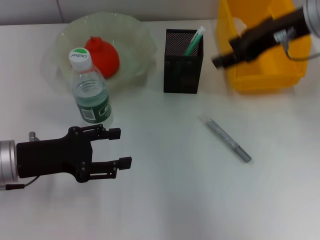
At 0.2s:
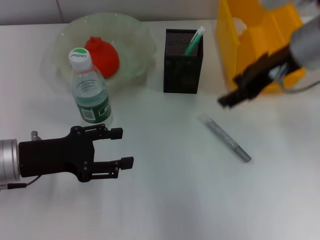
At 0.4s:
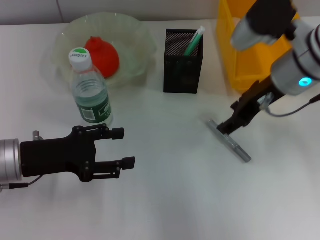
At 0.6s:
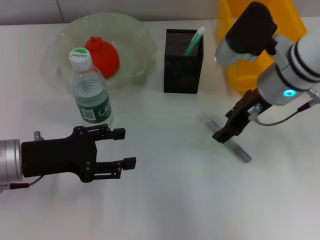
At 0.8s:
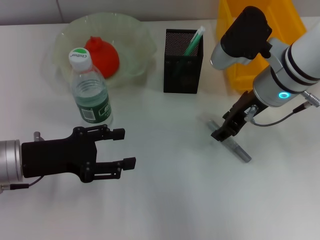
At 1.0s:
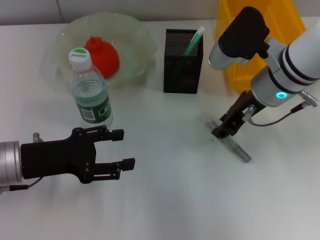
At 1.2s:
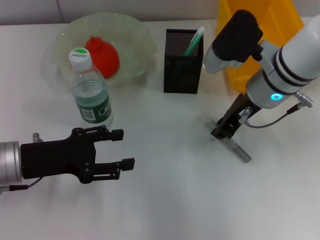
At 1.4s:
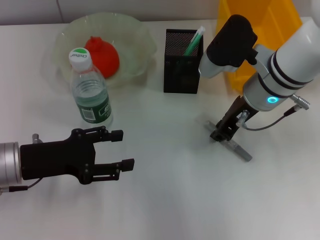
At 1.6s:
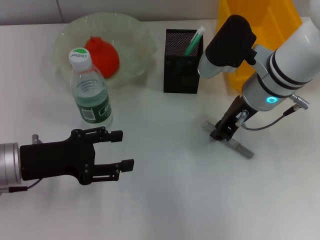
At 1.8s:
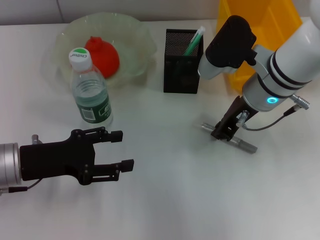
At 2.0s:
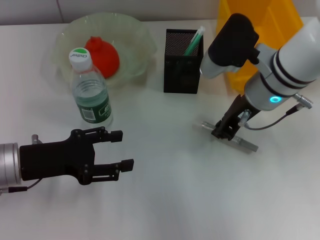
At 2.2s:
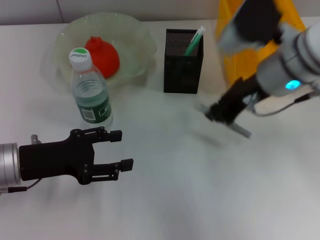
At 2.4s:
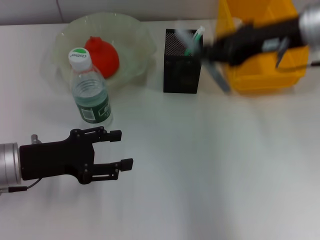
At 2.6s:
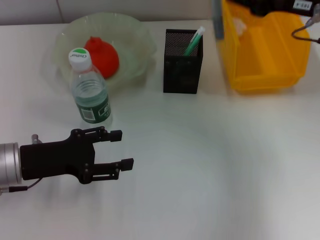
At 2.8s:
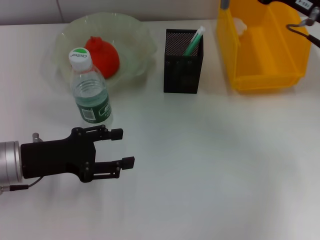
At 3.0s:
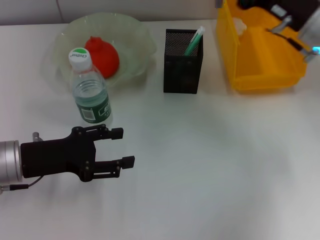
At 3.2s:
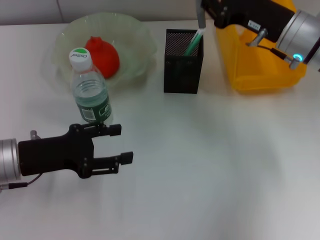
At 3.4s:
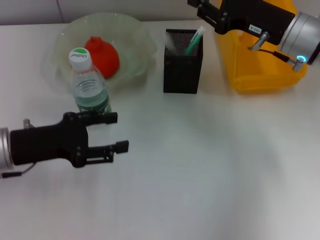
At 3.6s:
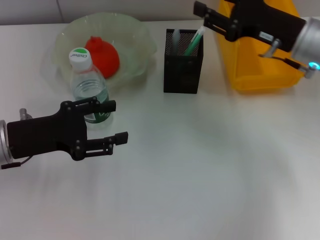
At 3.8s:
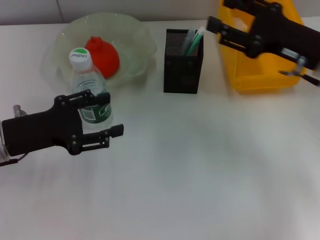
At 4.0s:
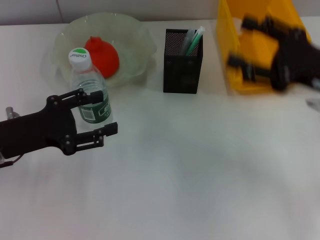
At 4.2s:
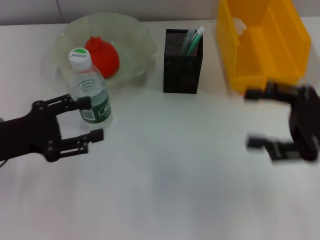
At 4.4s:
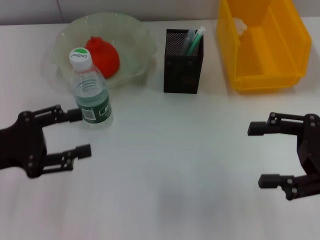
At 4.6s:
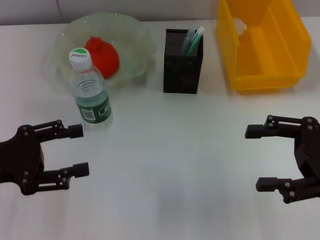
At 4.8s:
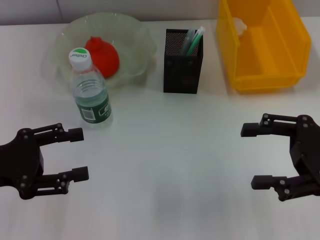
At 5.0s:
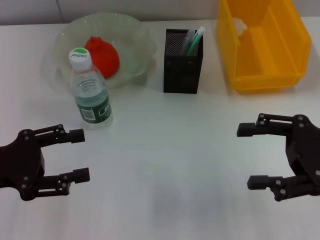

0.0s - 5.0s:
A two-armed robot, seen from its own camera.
Step, 0.0s - 1.6s: Grab the gray glue with the right hand.
Step, 1.8s - 3.6s: Place the gray glue into the pen holder with the right hand.
0.0s - 1.6s: The right gripper moves downward and to the left, about 10 cm, and closes.
1.6s - 3.4s: The right gripper moves to the right, some 5 cm.
3.4s - 5.0s: The left gripper shifts by roughly 5 cm, while the right gripper travels backward and to the right by about 15 cm, and opens its fingers.

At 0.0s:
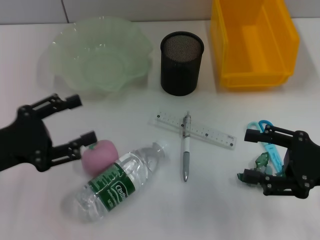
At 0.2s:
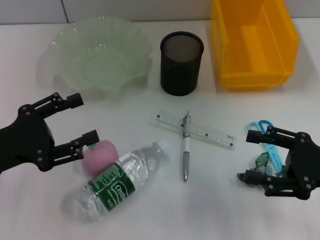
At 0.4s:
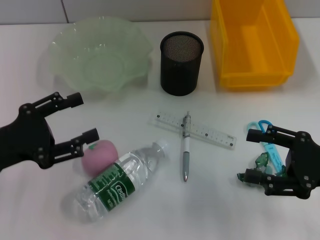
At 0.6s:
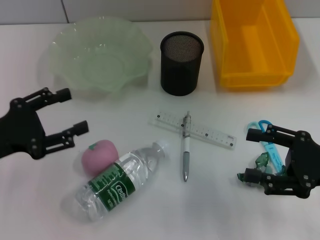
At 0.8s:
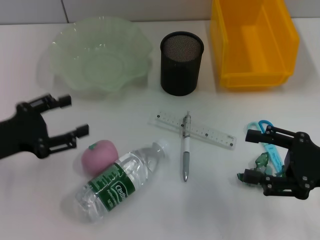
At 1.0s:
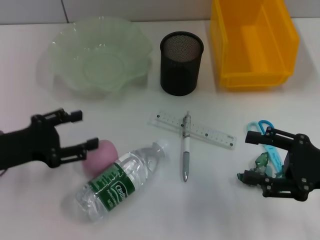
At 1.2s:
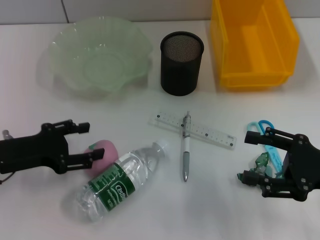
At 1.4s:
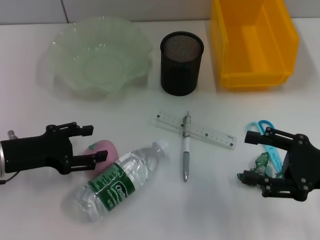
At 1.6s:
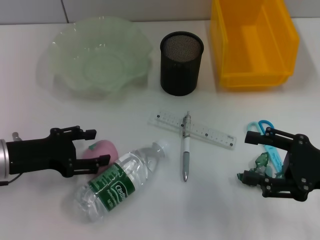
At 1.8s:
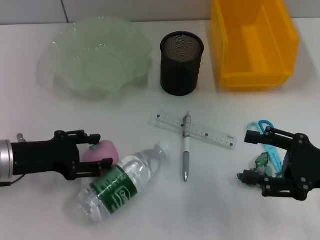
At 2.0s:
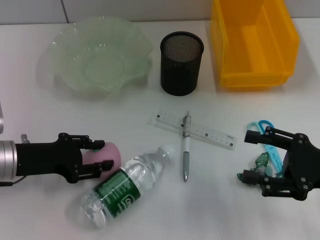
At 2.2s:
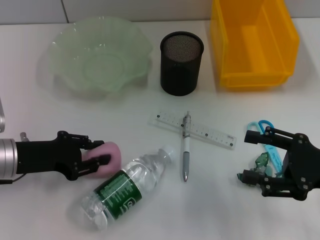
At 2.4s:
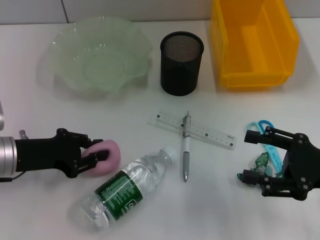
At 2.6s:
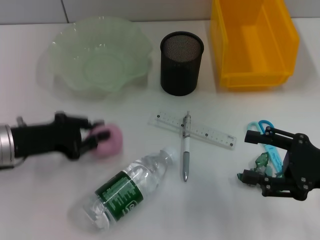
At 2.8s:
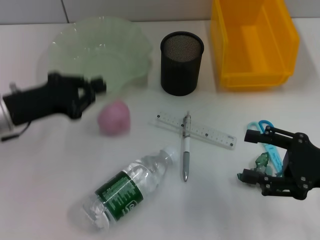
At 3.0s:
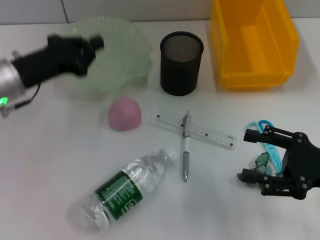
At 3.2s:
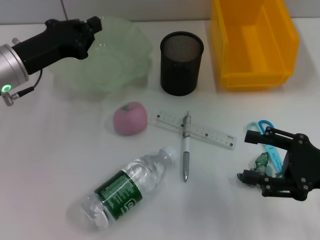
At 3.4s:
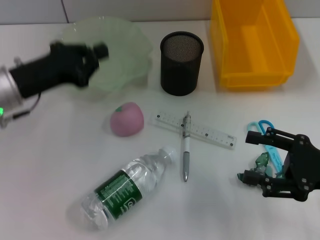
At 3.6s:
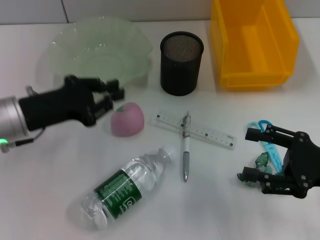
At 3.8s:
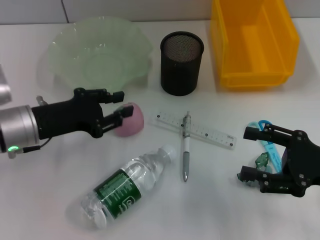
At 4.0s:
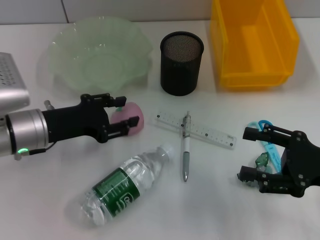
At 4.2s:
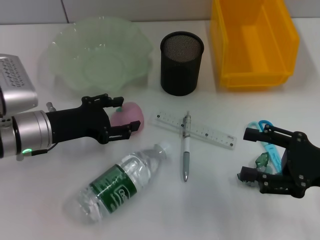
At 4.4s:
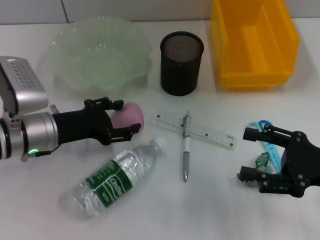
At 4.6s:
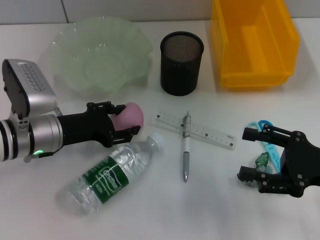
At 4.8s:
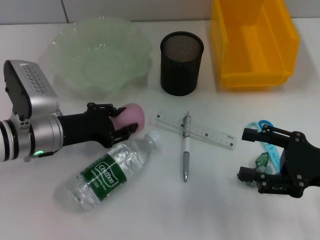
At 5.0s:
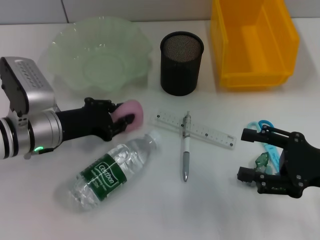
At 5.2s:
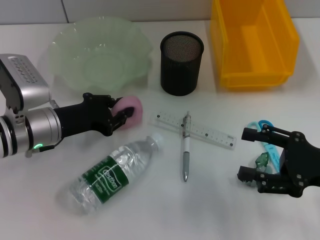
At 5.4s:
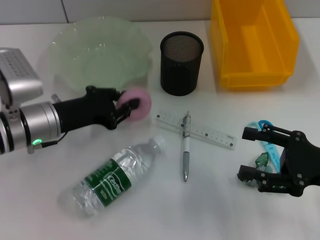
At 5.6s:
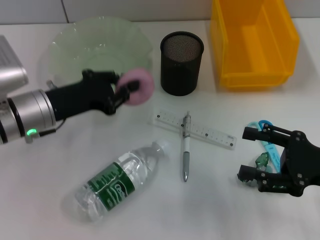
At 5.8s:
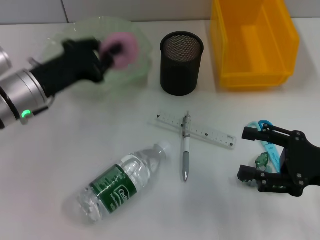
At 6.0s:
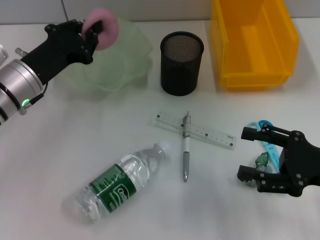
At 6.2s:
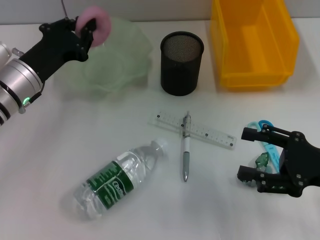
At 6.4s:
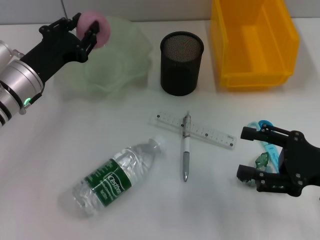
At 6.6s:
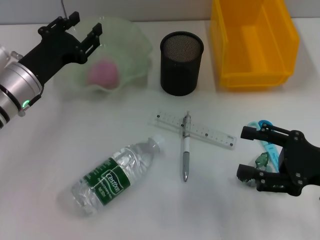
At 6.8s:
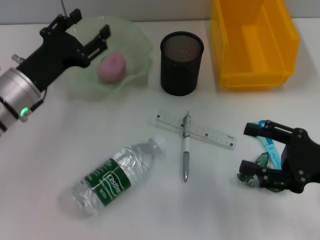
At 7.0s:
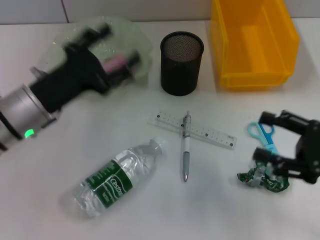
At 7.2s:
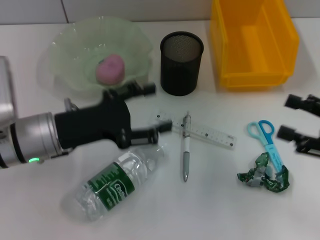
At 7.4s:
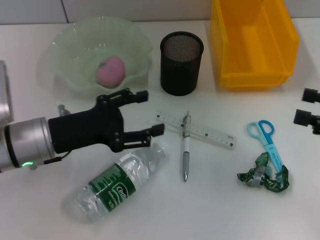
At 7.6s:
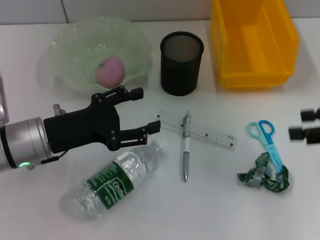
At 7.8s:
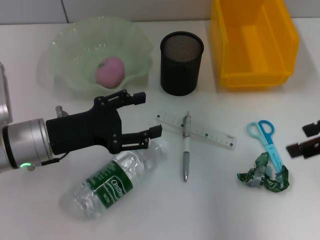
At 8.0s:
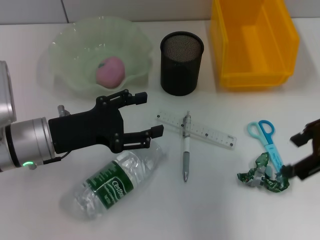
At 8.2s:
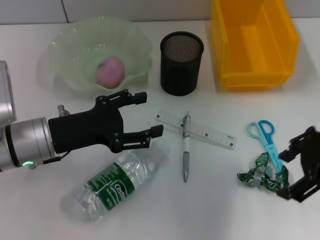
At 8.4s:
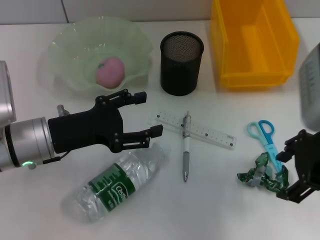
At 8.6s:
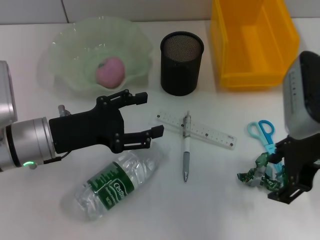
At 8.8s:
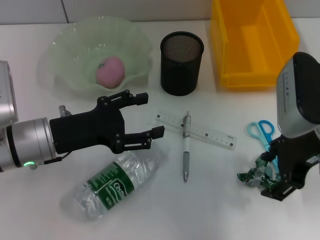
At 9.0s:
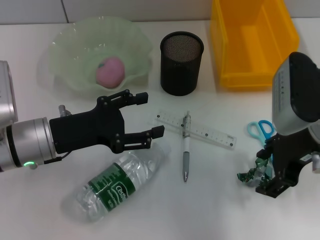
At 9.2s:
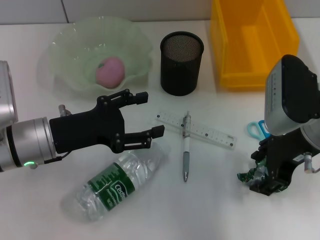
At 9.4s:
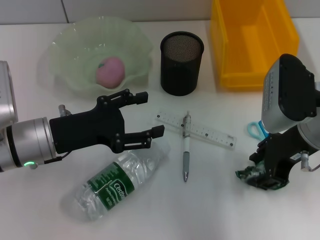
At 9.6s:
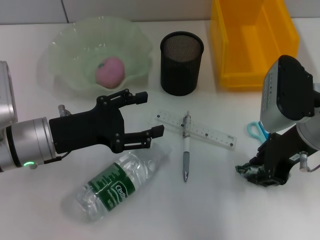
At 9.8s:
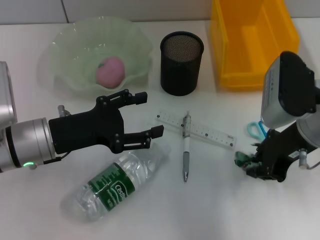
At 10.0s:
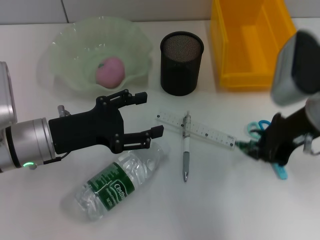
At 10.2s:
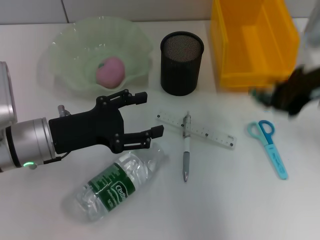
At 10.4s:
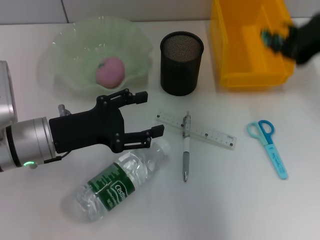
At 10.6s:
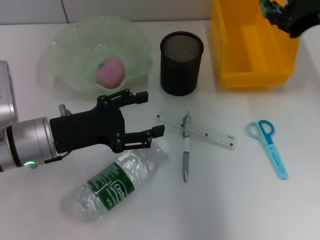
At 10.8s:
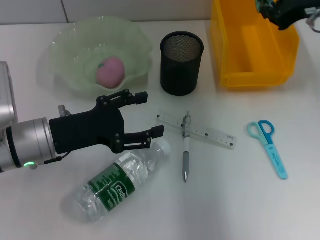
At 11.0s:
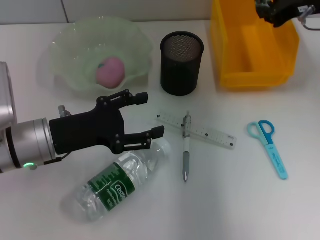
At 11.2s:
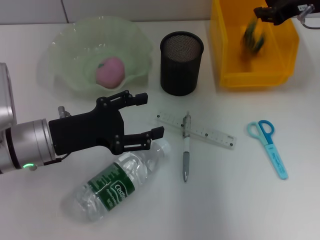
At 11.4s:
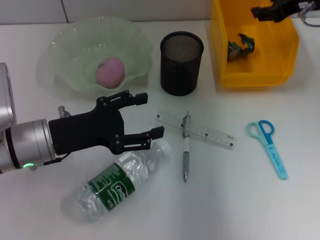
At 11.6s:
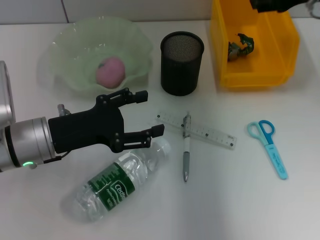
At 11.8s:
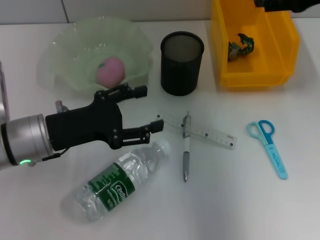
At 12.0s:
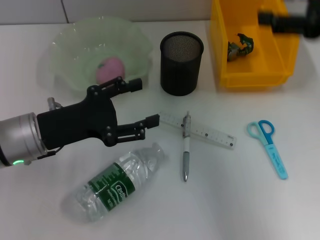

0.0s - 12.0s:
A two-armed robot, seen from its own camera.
Step, 0.0s - 4.6s: Grab the peach with the left hand.
Step, 4.8s - 6.8s: Place the peach into the fruit bowl with the left hand.
Step, 7.2s - 9.6s: Grab the plastic with the right hand.
Step, 9.8s - 11.8s: Place the plastic into the trash can with the right hand.
0.0s - 1.6s: The left gripper moves roughly 5 cm.
1.6s - 3.0s: The left gripper moves forward, some 5 cm, and closes its fingers.
3.0s - 4.4s: The left gripper moves downward, about 5 cm, and opens up.
4.4s - 6.0s: The left gripper closes up.
6.0s - 7.6s: The left gripper heads backward, covering some 5 cm, and opens, while the right gripper is displaced upward by about 10 cm.
7.6s - 9.0s: The right gripper moves to the left, about 15 cm.
9.0s - 10.4s: The right gripper shifts some 10 cm upward, and closes.
10.4s - 12.0s: The right gripper reaches approximately 10 cm forward, then returns, and opens its fingers.

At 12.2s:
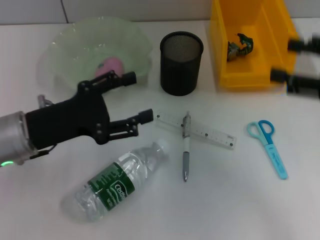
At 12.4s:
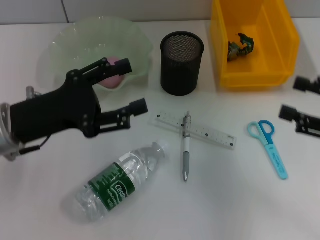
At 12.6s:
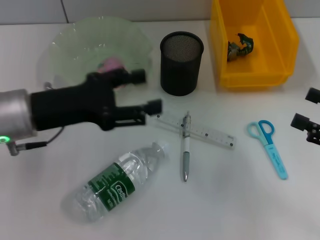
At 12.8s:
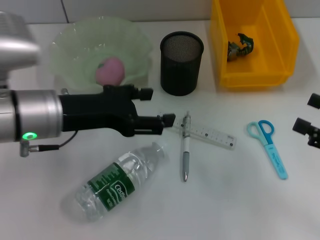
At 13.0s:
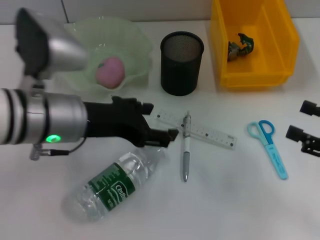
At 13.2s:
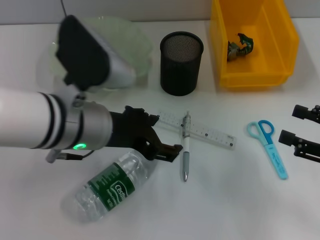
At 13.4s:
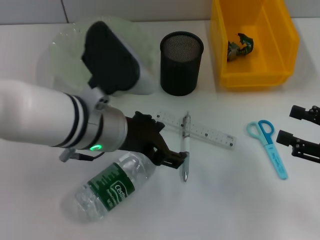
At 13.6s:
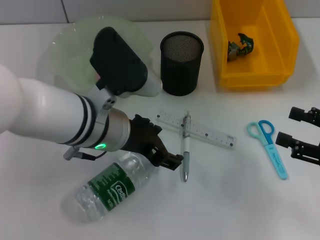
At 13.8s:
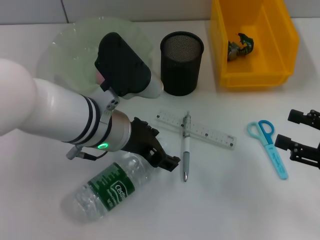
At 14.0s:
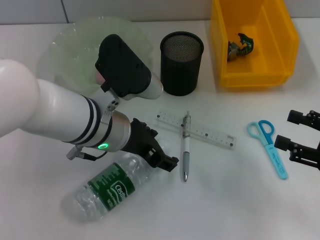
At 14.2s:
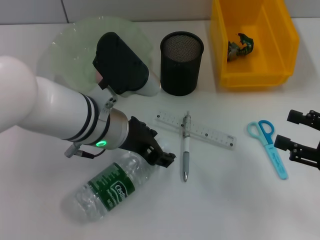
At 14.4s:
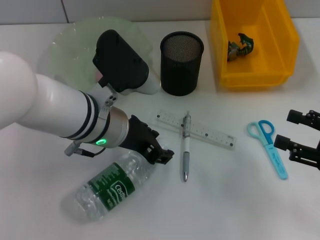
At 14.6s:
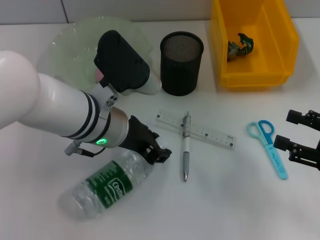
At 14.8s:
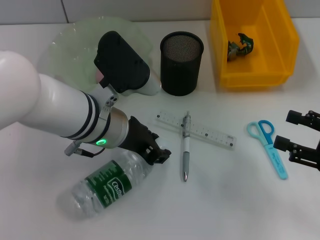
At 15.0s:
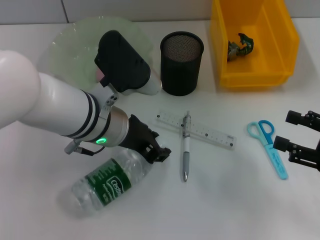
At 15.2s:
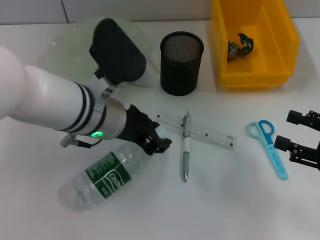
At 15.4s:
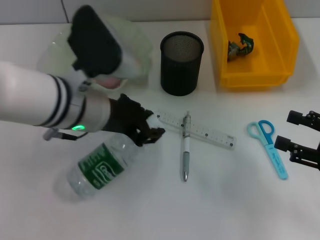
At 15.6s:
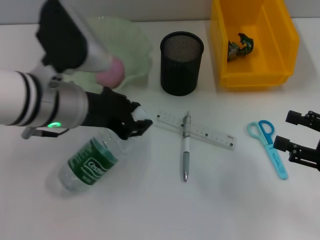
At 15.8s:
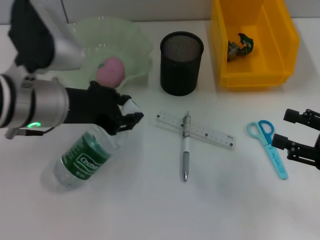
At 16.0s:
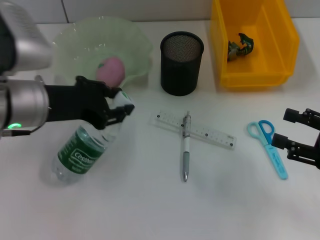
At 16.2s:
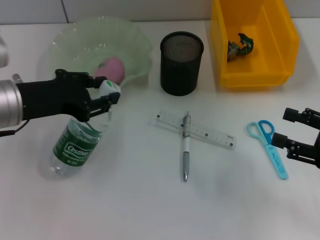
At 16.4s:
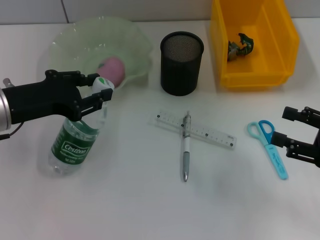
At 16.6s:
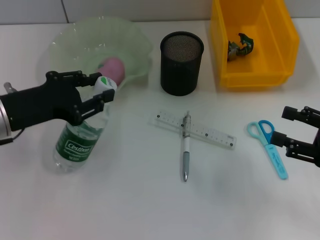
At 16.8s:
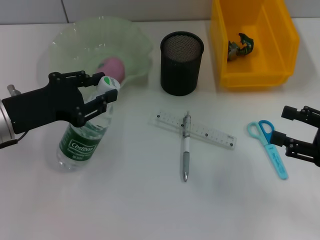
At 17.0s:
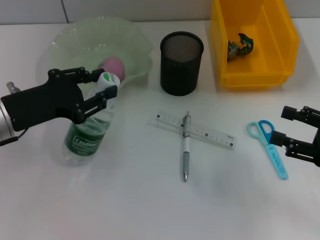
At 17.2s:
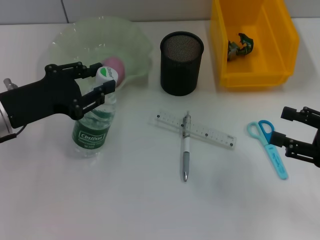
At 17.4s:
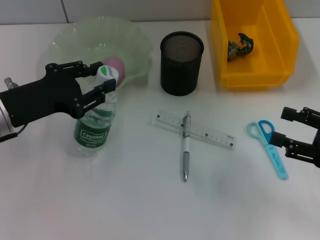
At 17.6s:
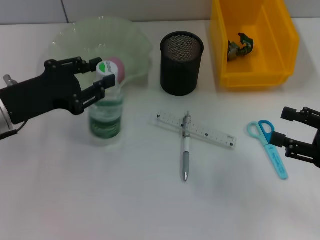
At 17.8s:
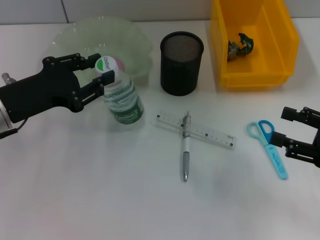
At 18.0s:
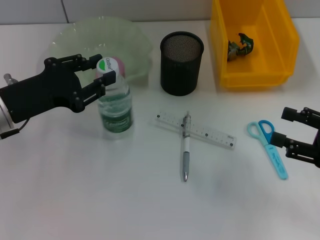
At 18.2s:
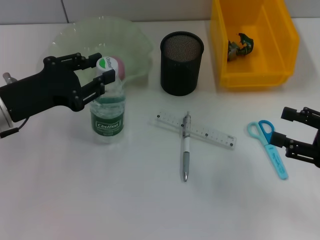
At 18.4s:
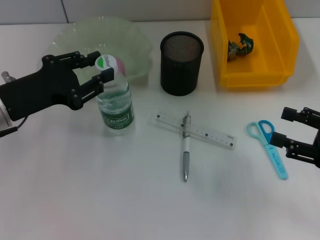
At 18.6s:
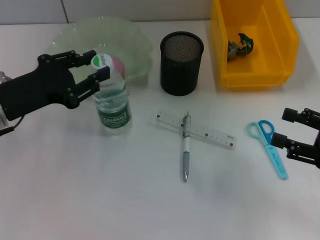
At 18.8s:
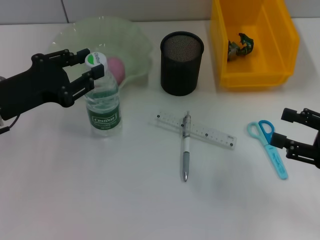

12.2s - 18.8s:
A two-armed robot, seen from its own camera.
Step, 12.2s - 14.6s: Grab the water bottle with the left hand.
12.2s - 13.8s: The right gripper shifts approximately 10 cm downward. The left gripper moves to the right, about 15 cm.
13.8s - 15.4s: The left gripper closes.
15.4s - 17.2s: The left gripper is displaced to the left by approximately 15 cm.
17.2s - 18.8s: The grippers stay close to where they were, moving slightly.
